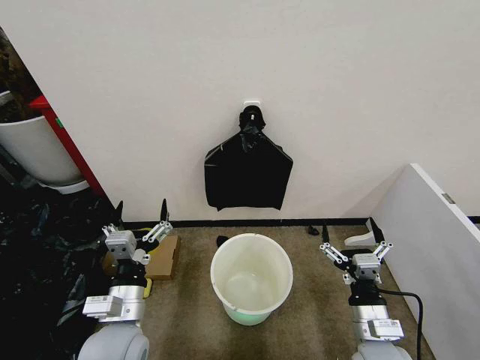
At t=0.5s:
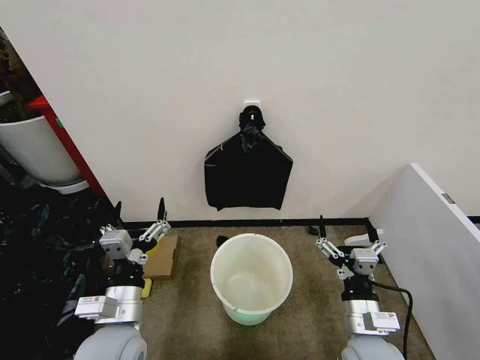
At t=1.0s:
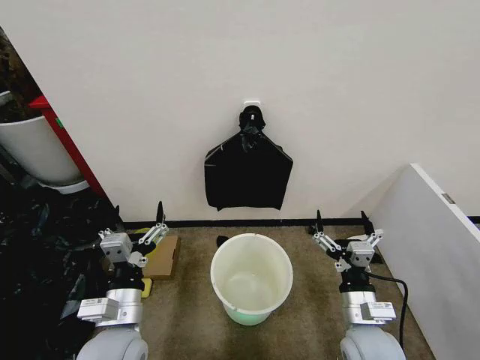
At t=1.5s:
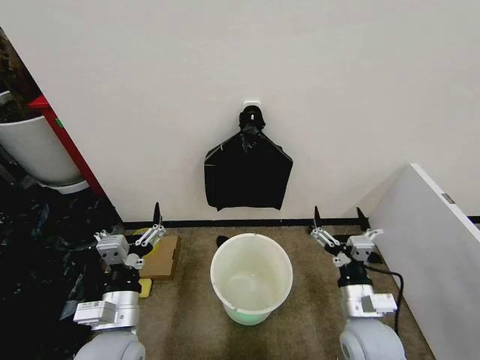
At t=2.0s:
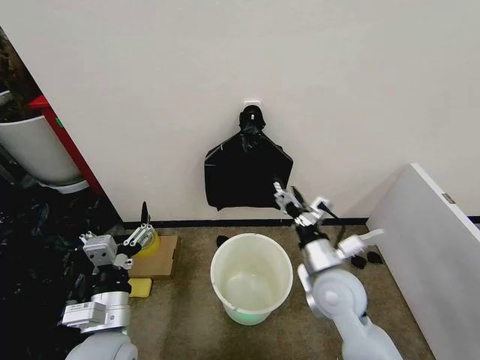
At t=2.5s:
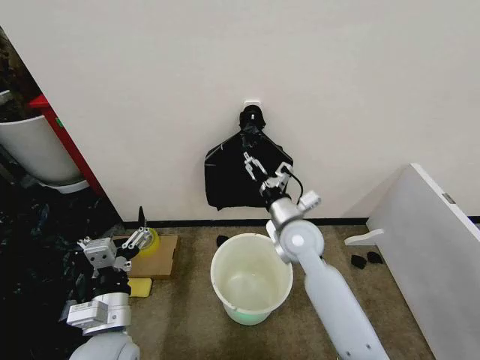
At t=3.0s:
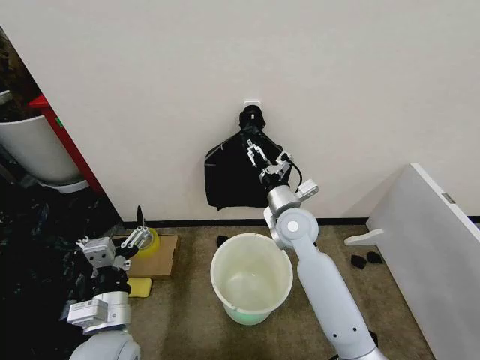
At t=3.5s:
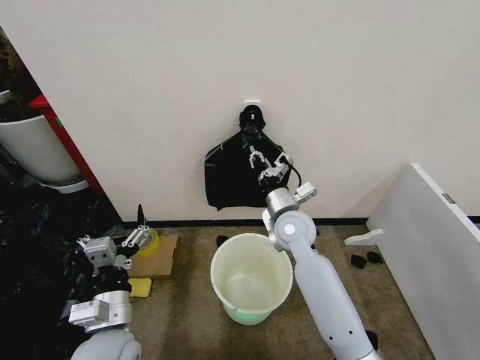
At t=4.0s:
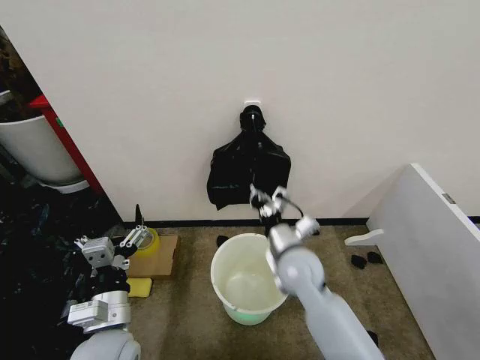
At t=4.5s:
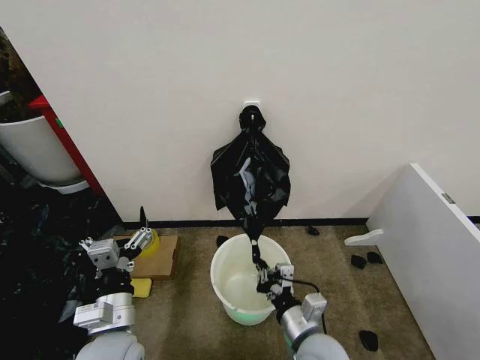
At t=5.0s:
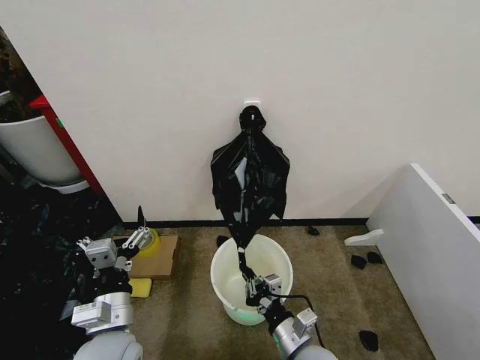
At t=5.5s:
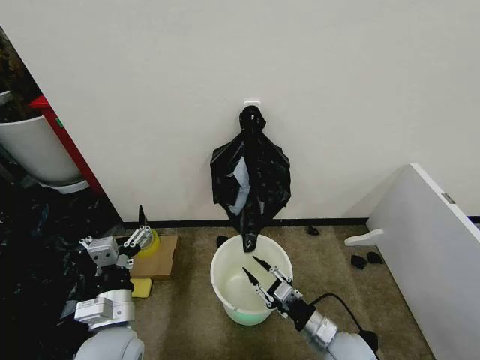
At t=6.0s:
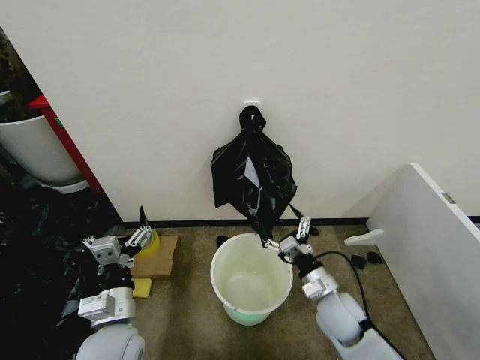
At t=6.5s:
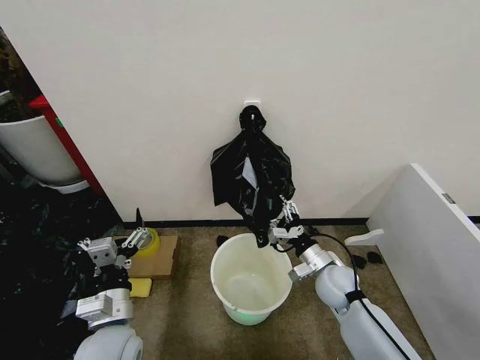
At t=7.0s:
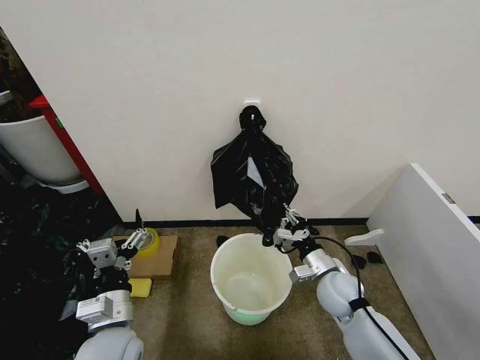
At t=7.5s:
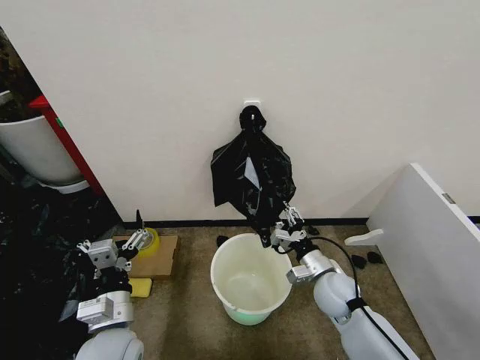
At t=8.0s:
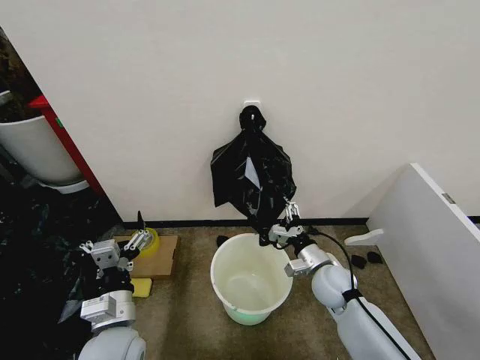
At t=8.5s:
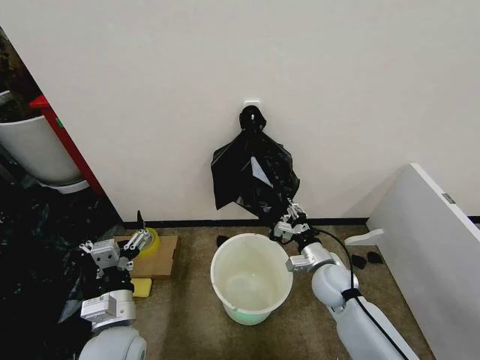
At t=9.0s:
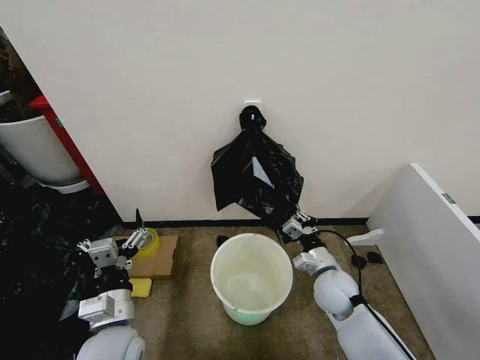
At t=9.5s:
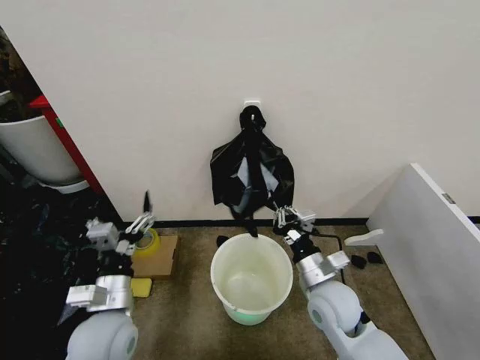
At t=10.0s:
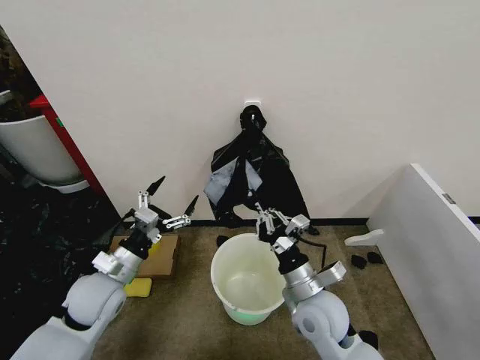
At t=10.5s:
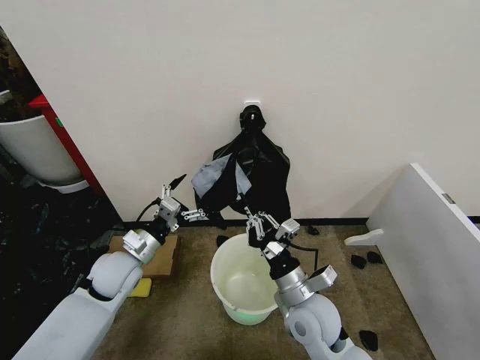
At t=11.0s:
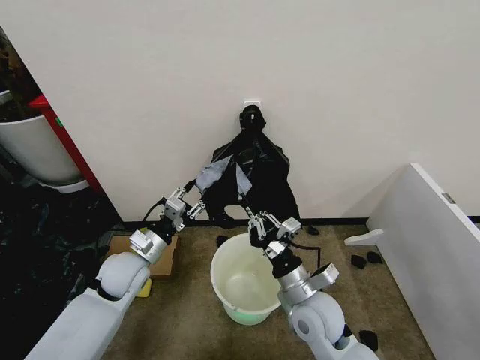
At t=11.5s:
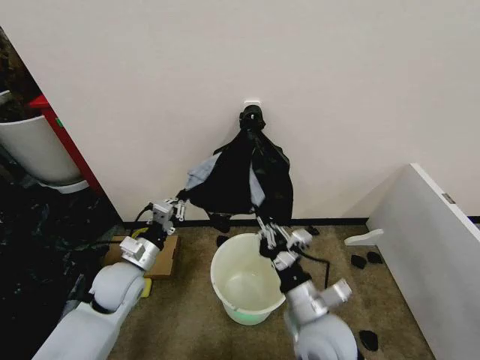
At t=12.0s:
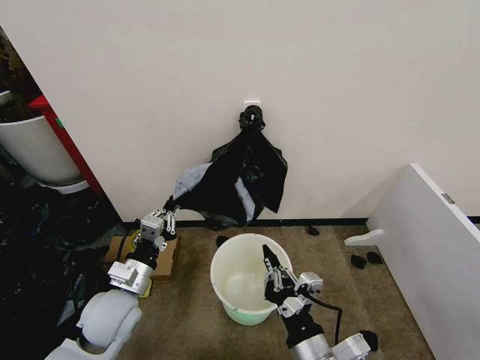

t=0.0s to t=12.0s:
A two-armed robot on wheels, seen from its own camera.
Task of the whole recording: Place the garbage bag over the trash bin.
t=2.0s to t=4.0s: The right gripper is displaced to the left and forward by approximately 10 cm, and closes.
t=4.0s to t=6.0s: The right gripper shifts roughly 15 cm to the right, downward and backward, and opens up.
t=6.0s to t=8.0s: The right gripper heads forward, covering some 5 cm, and closes, then opens again.
t=8.0s to t=10.0s: The right gripper is displaced backward, to the left and upward by some 10 cm, and closes; the left gripper moves forward and to the left, roughly 10 cm.
t=10.0s to t=12.0s: The right gripper shifts about 15 cm backward. The left gripper travels forward and back again, roughly 5 cm each way, and closes its fingers.

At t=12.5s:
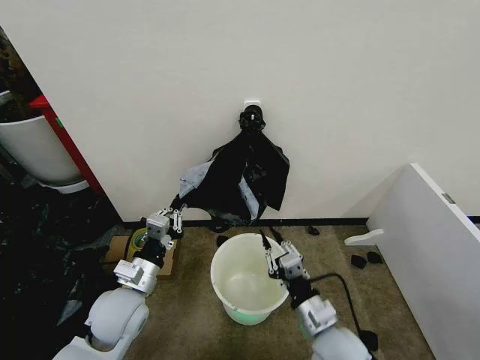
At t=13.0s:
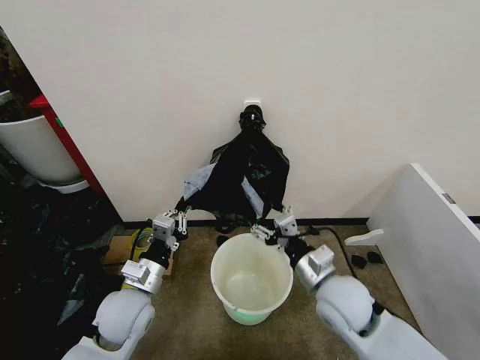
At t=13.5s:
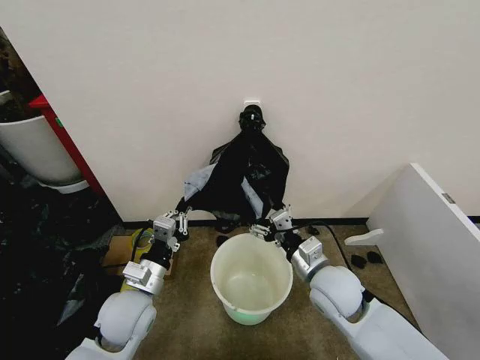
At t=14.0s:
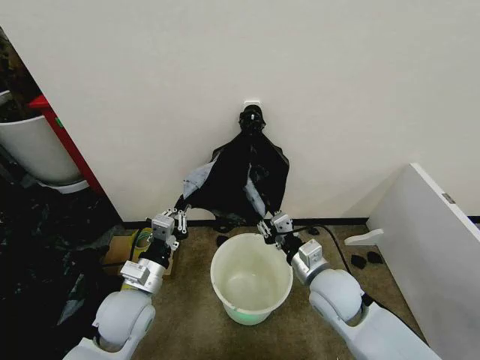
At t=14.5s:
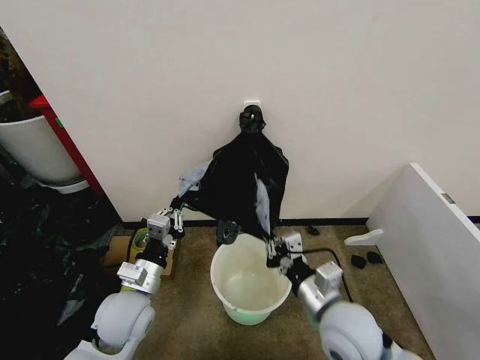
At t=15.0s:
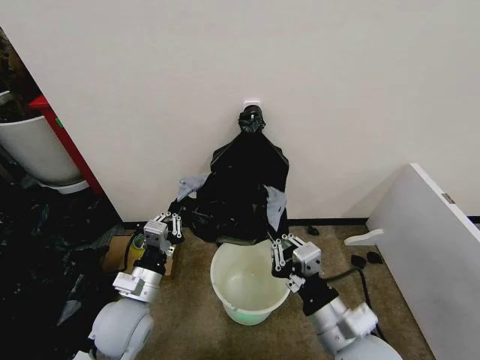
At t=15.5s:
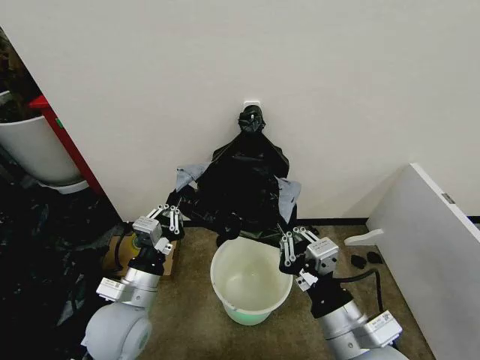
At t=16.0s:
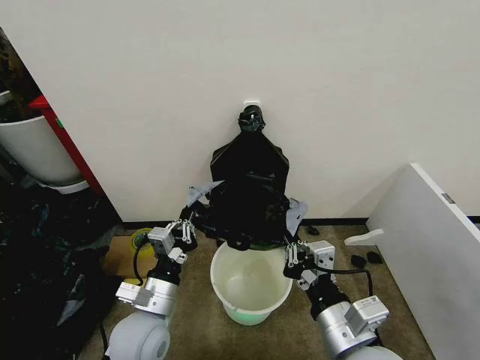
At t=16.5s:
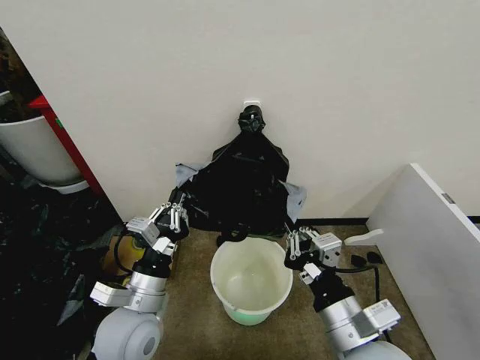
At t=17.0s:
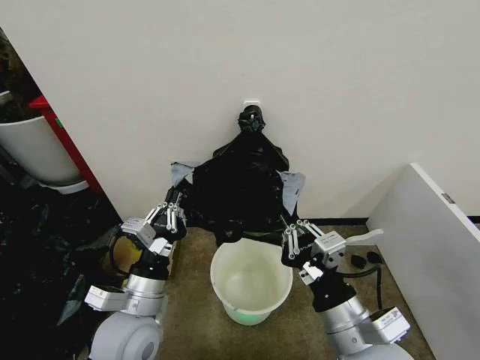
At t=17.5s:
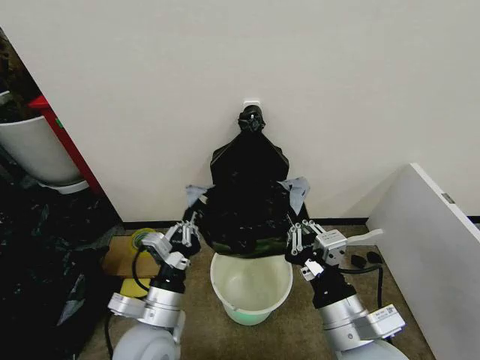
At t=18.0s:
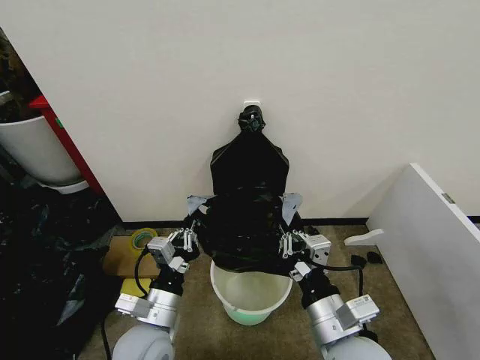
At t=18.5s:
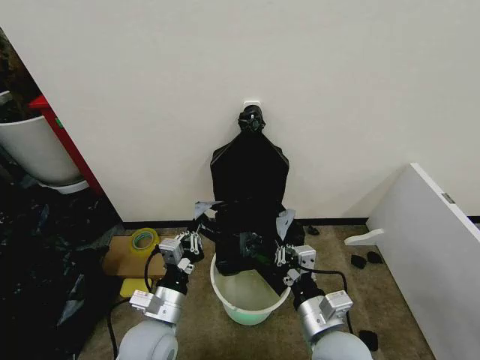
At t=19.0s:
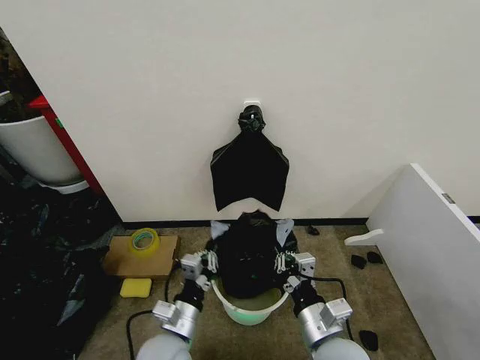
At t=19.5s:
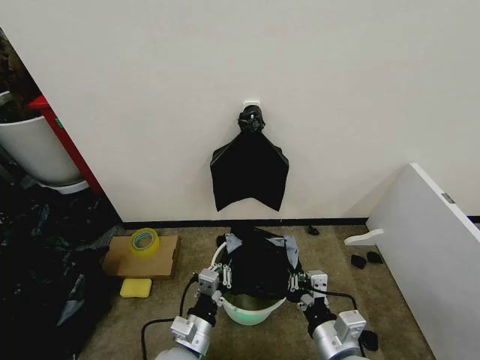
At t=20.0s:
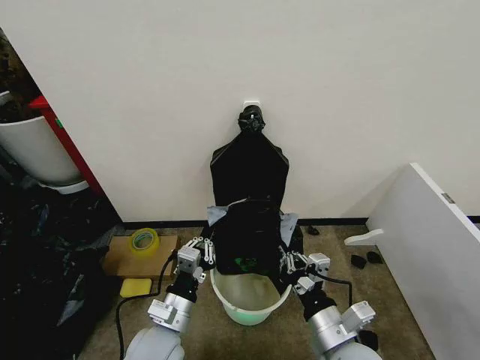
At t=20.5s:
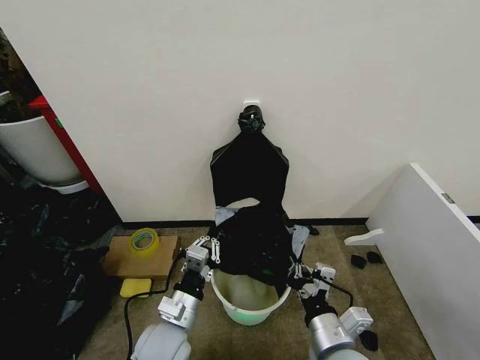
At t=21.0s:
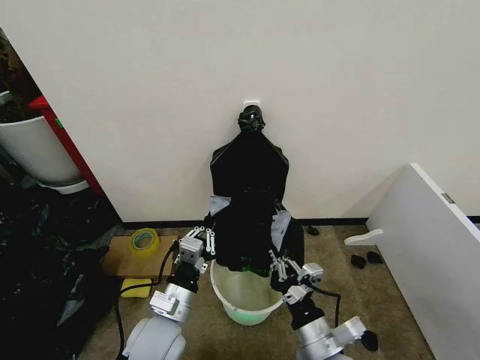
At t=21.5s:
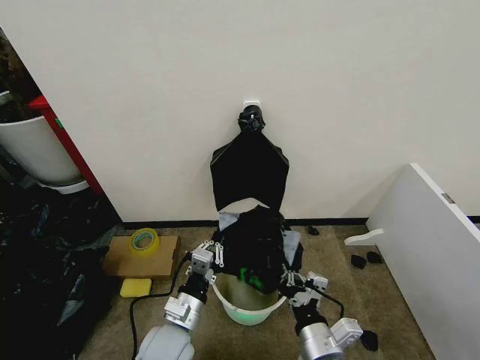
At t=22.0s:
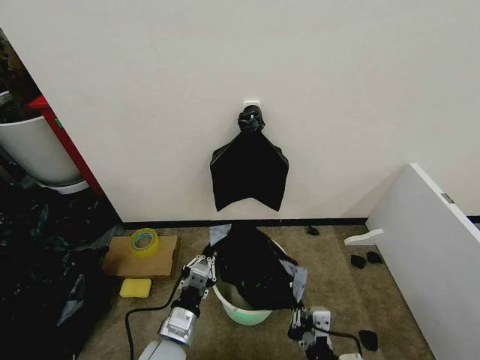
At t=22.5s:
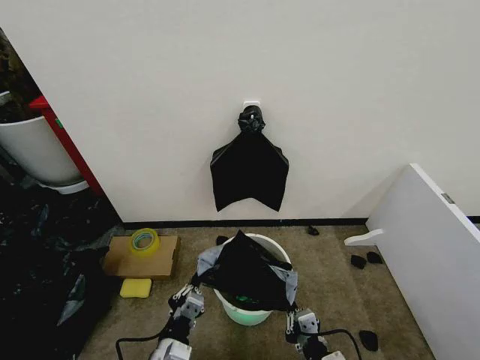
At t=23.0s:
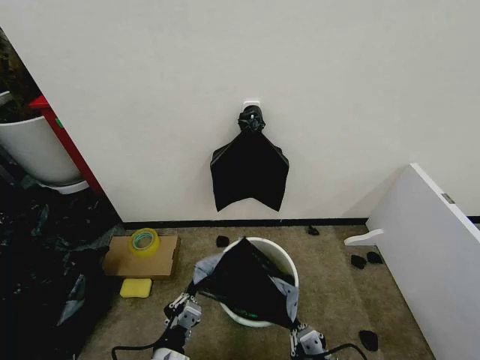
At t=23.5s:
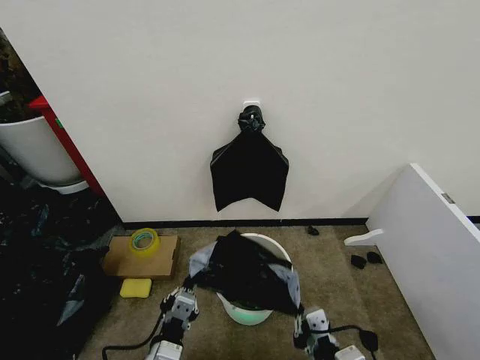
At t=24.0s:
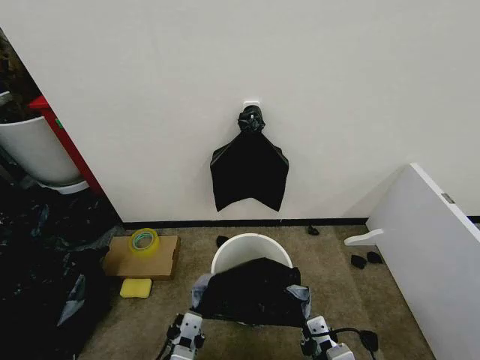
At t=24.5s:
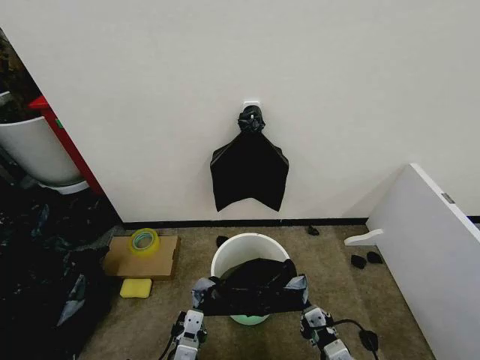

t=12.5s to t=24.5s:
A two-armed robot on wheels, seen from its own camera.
Task of the whole recording: Place the garbage bag over the trash bin.
t=12.5s to t=14.5s: The right gripper travels upward by approximately 5 cm, moves approximately 10 cm forward and comes back, and opens, then closes again.
t=14.5s to t=16.5s: The right gripper is displaced backward and upward by some 10 cm. Meanwhile the left gripper moves some 5 cm.
t=16.5s to t=18.5s: The grippers both shift downward by about 5 cm.
t=20.5s to t=22.5s: The right gripper moves downward and backward, roughly 10 cm. The left gripper shifts some 5 cm backward.
t=22.5s to t=24.5s: The right gripper moves about 5 cm upward and comes back.

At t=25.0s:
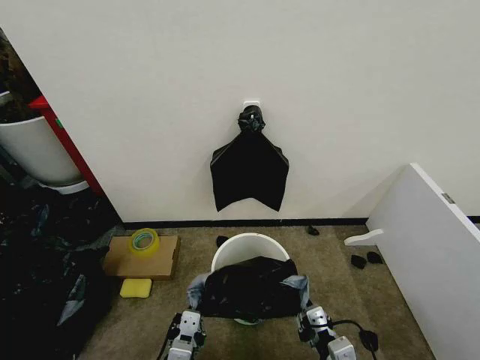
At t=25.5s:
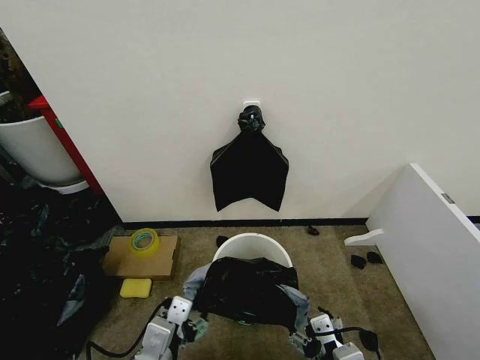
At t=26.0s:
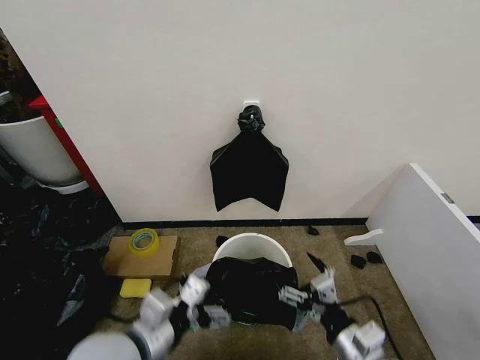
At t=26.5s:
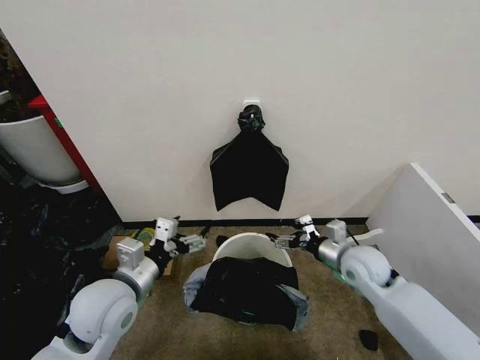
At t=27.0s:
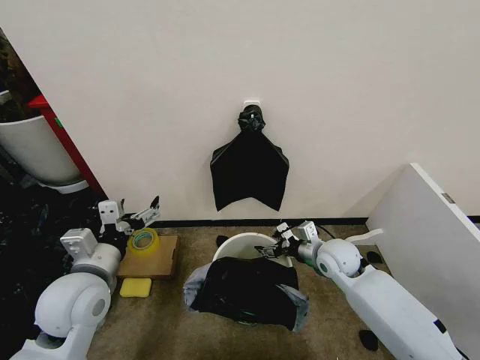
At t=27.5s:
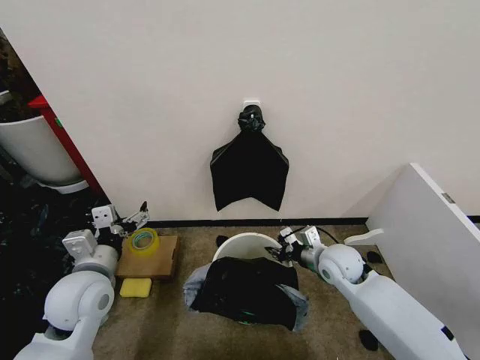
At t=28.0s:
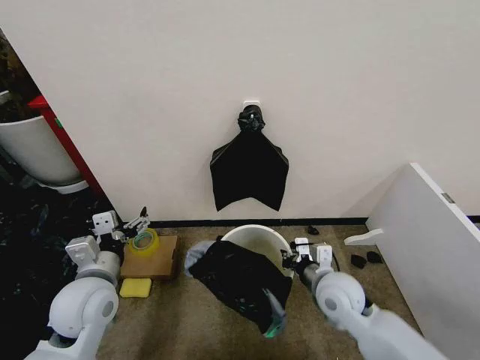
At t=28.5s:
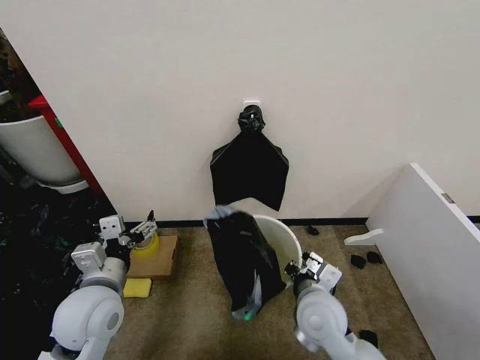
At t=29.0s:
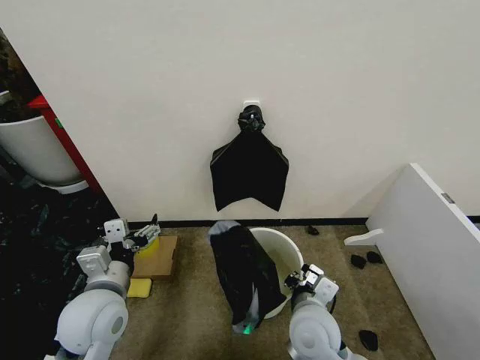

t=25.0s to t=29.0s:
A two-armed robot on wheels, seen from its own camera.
Task of the whole recording: Place the garbage bag over the trash bin.
t=25.0s to t=27.0s: The left gripper heads forward, to the left and upward, covering about 25 cm, and opens its fingers, while the right gripper heads forward, covering about 30 cm, and opens its fingers.
t=27.0s to t=29.0s: The right gripper moves backward and to the left, roughly 20 cm, and closes its fingers.
